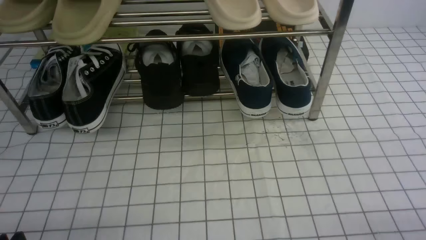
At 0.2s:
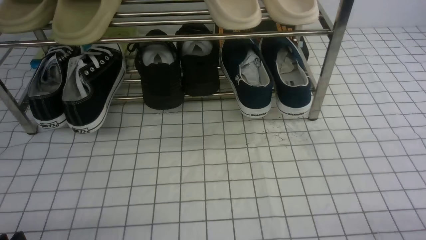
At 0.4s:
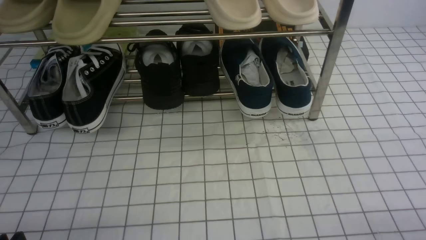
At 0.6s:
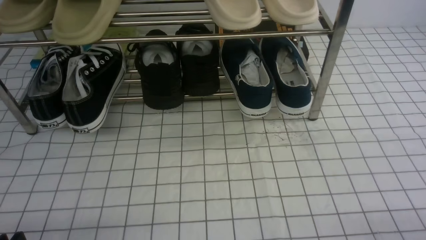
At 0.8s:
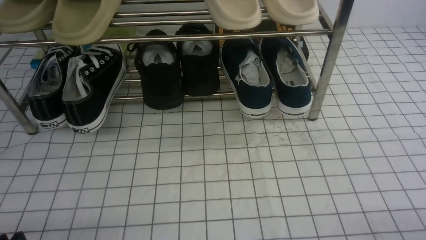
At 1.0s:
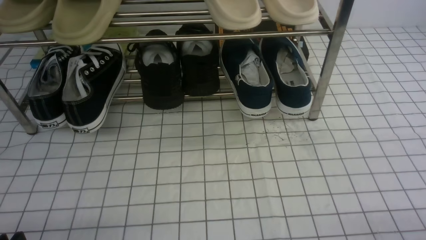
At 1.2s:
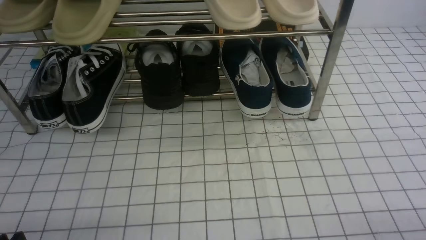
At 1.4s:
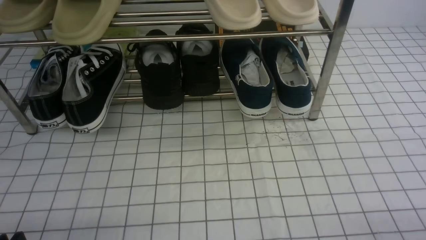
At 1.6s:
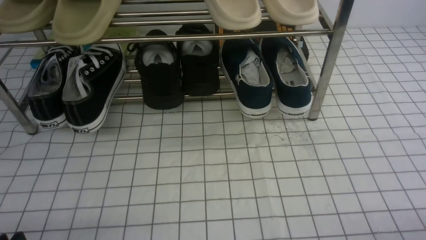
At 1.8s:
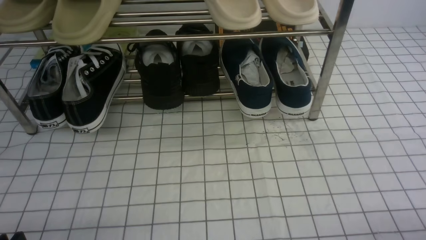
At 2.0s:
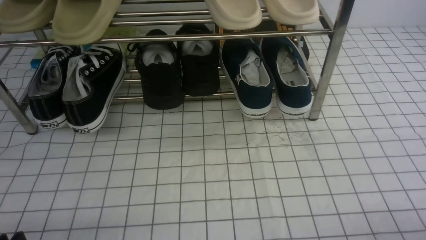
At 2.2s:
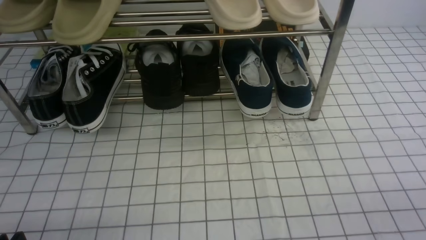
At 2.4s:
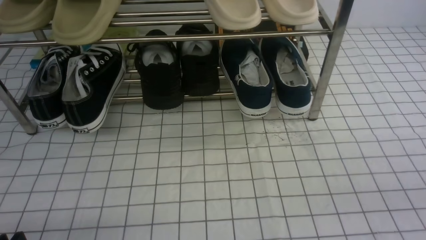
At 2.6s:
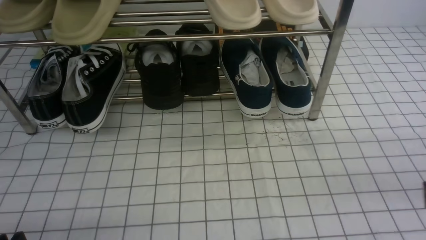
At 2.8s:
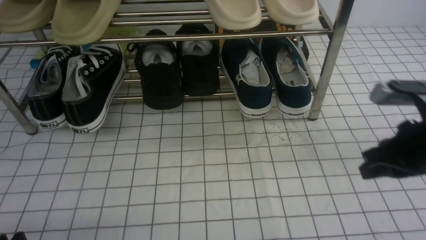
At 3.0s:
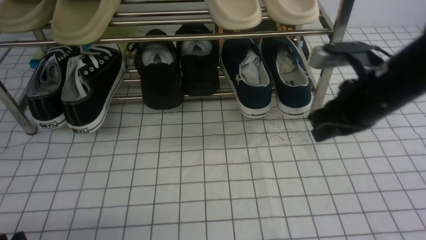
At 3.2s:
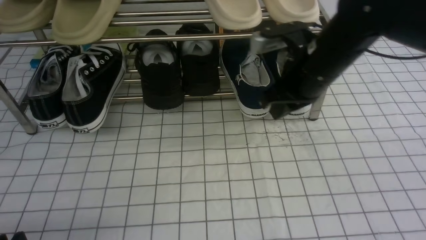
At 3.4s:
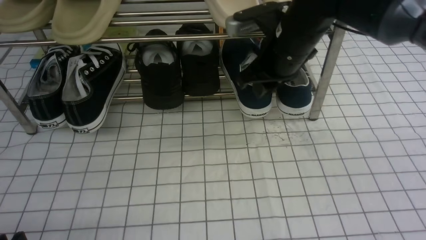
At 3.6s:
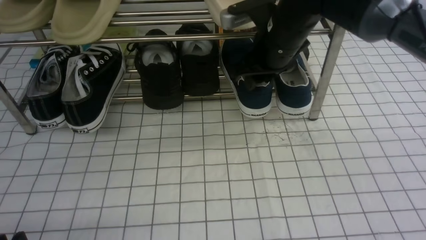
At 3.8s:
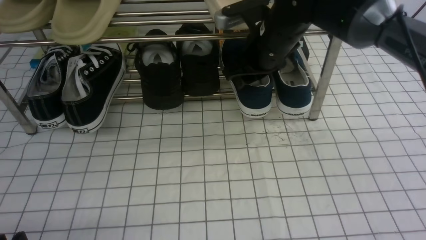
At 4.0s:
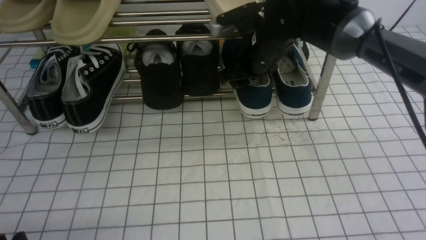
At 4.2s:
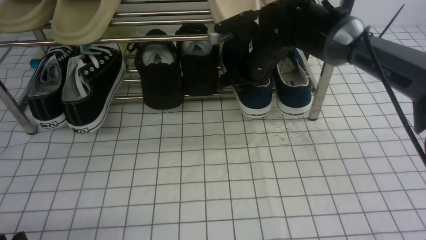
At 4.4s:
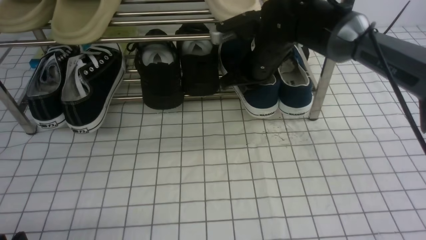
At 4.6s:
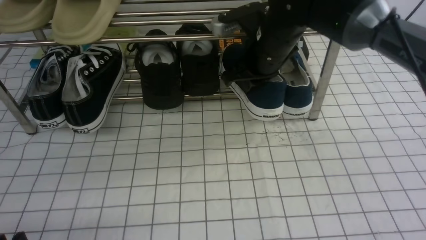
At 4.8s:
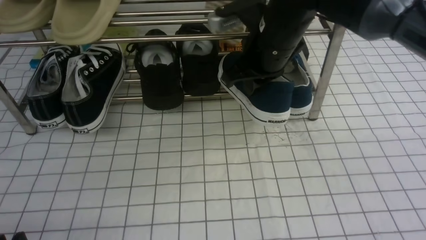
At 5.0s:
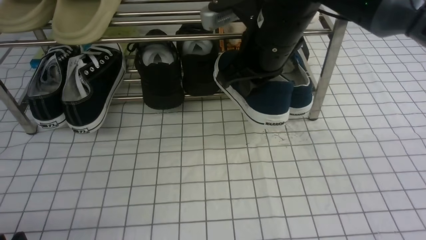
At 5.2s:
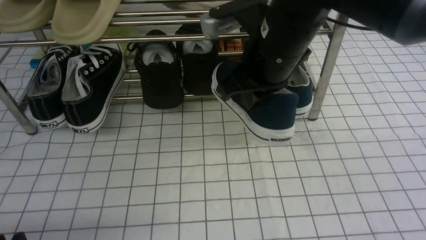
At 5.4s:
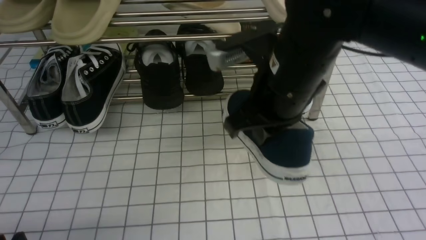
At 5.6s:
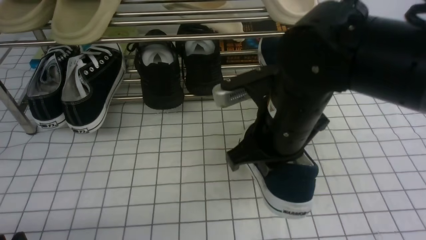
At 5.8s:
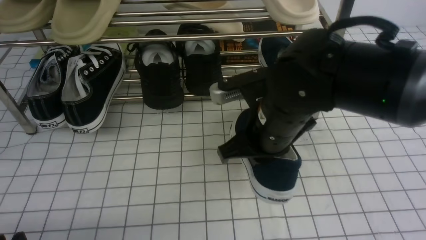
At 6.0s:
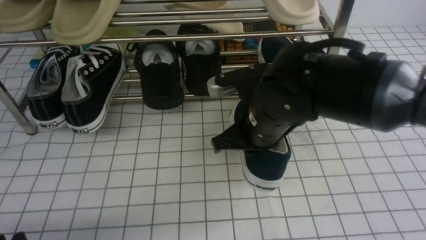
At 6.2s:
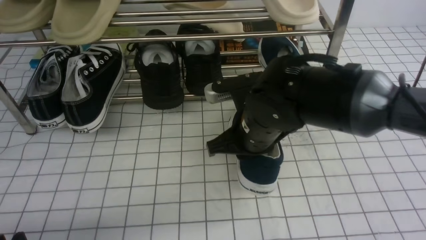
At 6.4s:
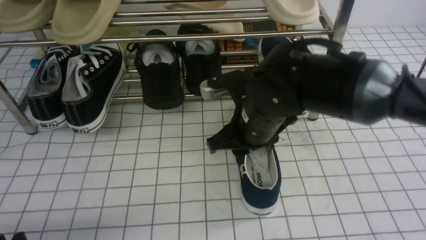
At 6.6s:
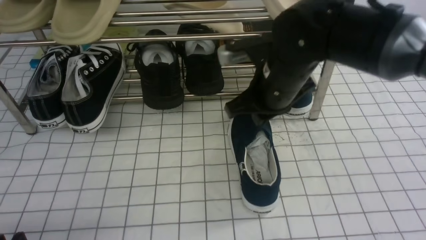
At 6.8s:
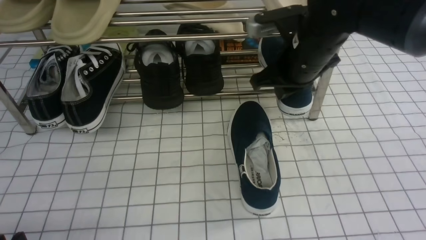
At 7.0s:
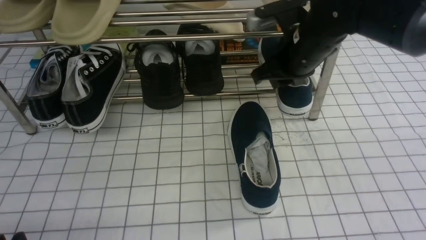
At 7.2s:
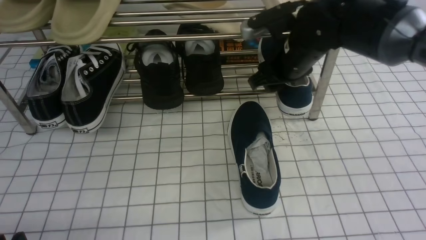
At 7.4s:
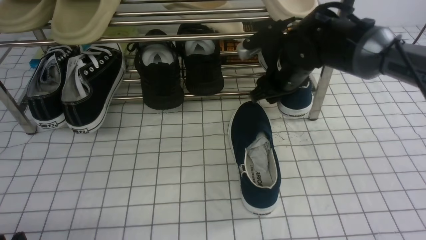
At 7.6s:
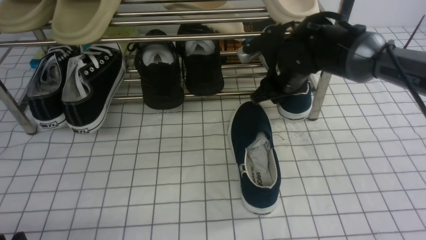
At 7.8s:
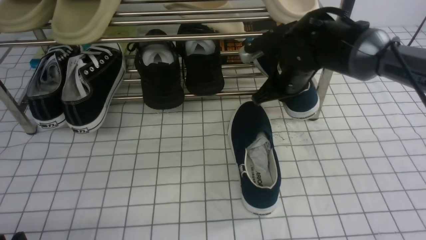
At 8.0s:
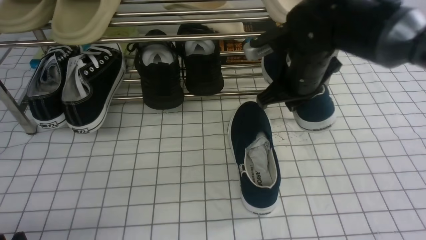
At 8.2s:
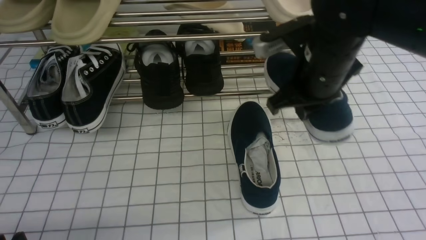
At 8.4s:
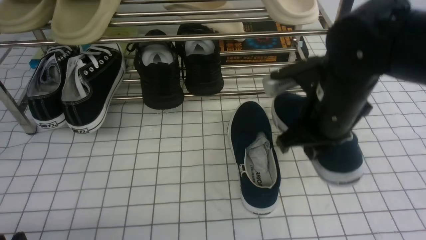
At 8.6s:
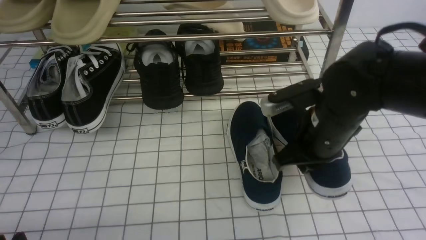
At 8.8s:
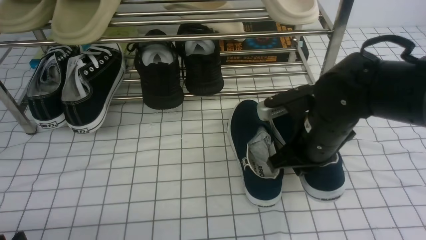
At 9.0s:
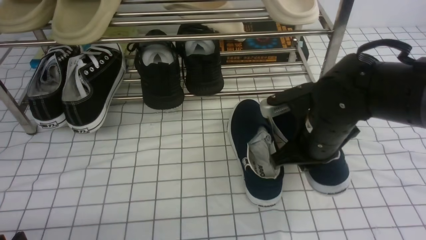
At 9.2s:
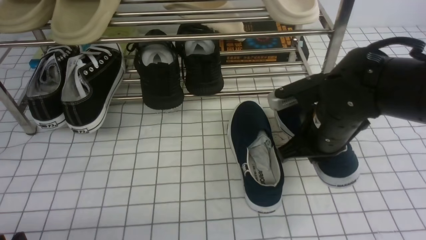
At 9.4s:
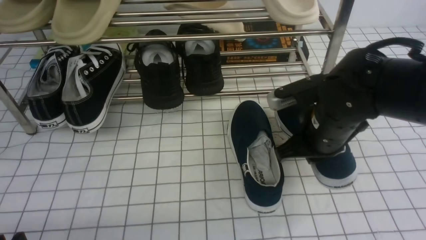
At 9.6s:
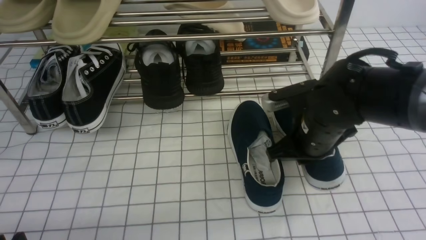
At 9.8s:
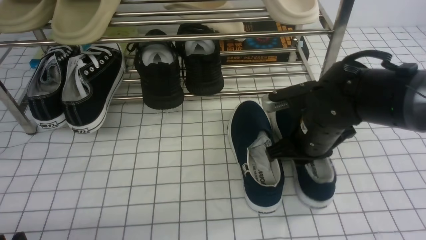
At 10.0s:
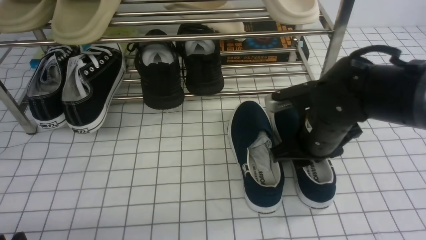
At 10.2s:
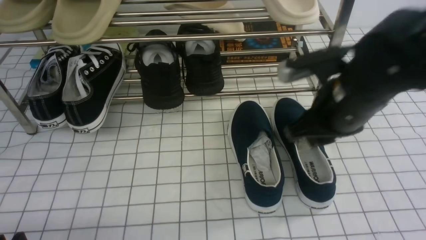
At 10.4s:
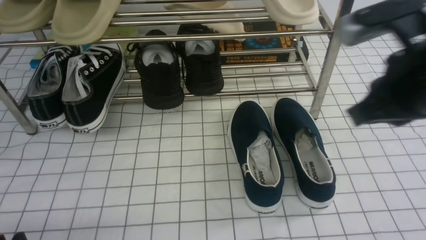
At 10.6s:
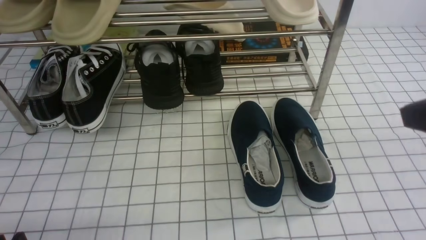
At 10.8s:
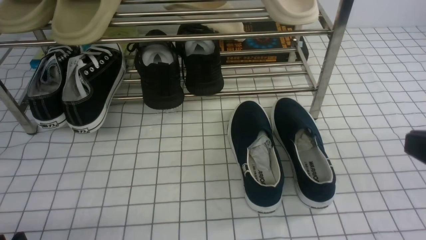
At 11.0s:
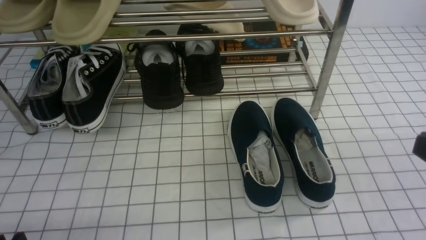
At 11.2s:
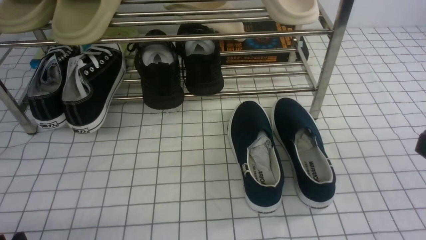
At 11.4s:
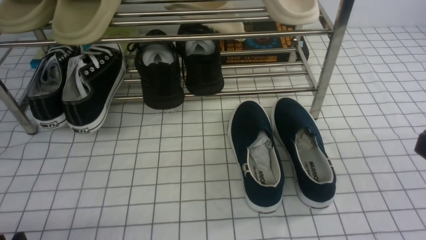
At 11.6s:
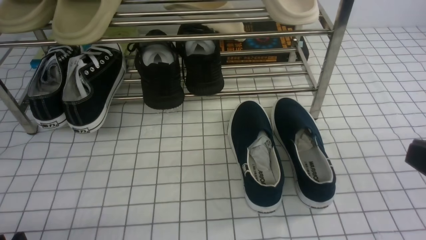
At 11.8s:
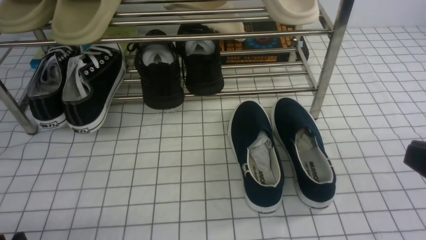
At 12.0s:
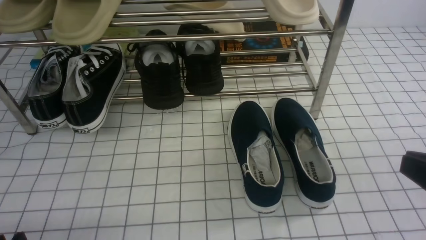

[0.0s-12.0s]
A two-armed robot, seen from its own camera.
Step, 0.0s to 4.0s: use the right arm to clamp a shoe on the right side of the shoe rack.
Step, 4.4s to 6.4s: use the right arm to take out the clamped shoe from the shoe rack and put it down.
Step, 6.6s to 7.6s: use the right arm to clamp a shoe on the right side of the shoe rack.
Step, 7.8s to 10.0s: use the right arm to take out the clamped shoe from the shoe rack and put it down.
1.6s to 3.0s: The right gripper shifts about 30 cm forward, to the left and upward, and closes.
3.0s to 4.4s: The right gripper travels forward and to the left by roughly 15 cm, and opens, then closes once more, while the left gripper opens.
4.4s to 6.0s: The right gripper is displaced backward by approximately 15 cm.
6.0s to 7.6s: The right gripper is displaced forward and to the right by roughly 15 cm, and opens its fingers.
7.6s to 9.0s: The right gripper is displaced backward by some 10 cm, and closes its fingers.
9.0s to 10.4s: The right gripper goes roughly 20 cm upward, backward and to the right, and opens, then closes once more.
10.4s to 12.0s: The right gripper moves backward, to the right and downward, about 15 cm.

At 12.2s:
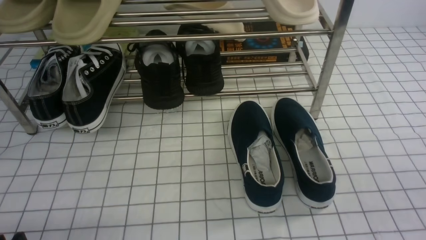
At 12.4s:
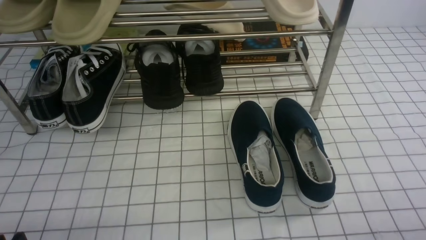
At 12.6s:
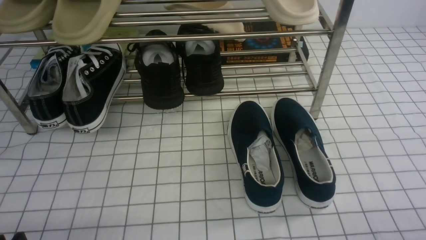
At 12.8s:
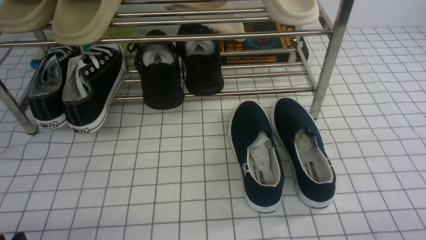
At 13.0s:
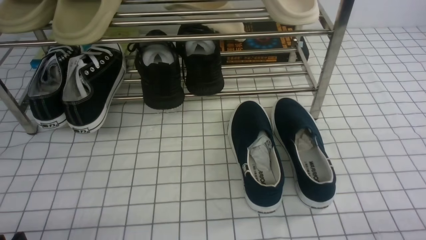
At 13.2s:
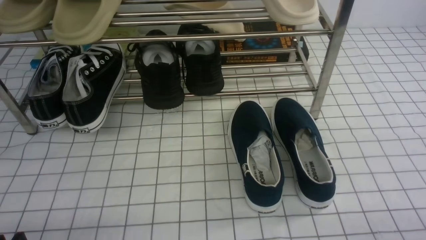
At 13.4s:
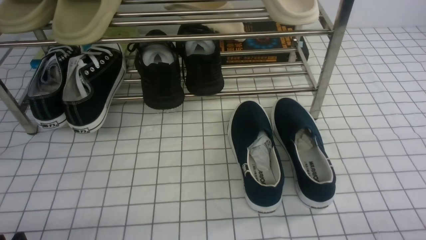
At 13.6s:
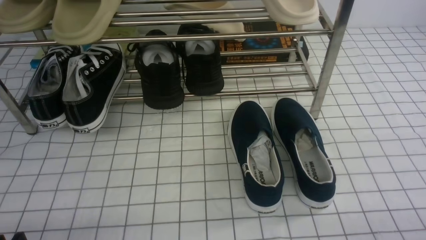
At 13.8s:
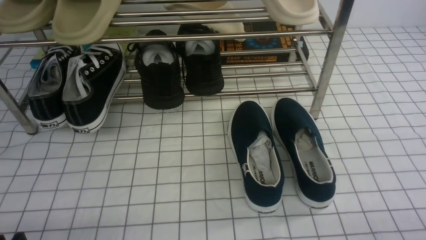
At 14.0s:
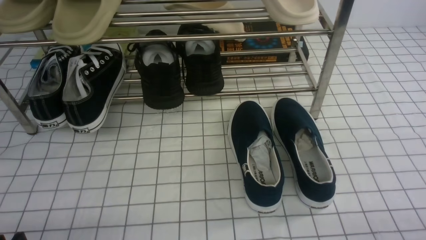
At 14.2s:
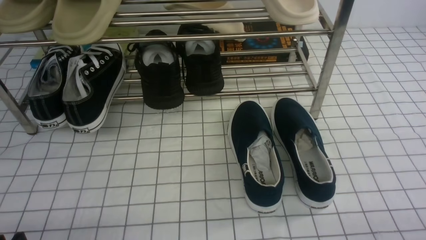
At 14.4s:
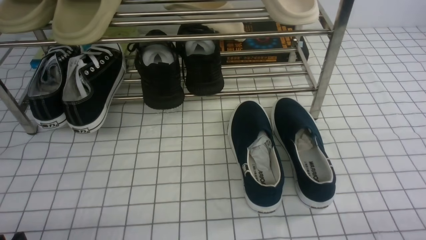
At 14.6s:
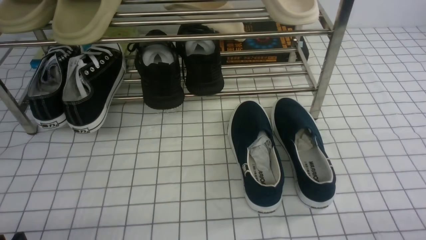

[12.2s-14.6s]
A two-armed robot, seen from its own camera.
13.4s to 14.6s: Both grippers stay put.
